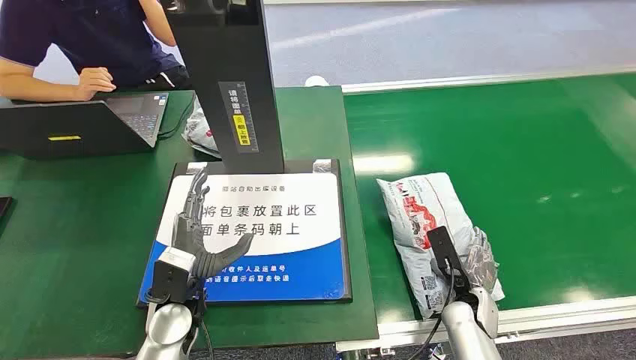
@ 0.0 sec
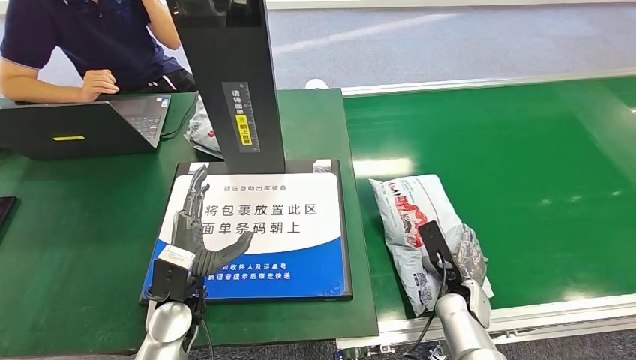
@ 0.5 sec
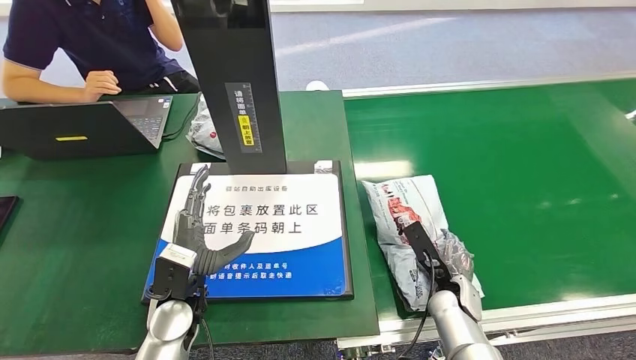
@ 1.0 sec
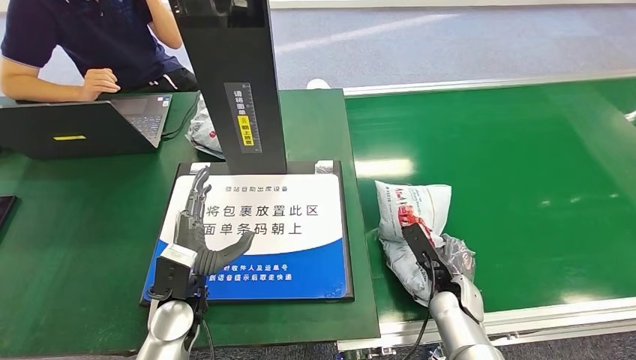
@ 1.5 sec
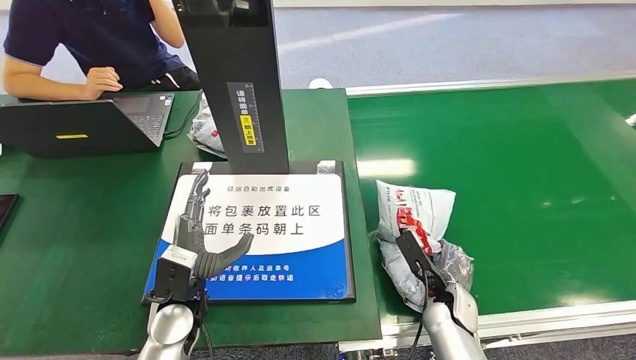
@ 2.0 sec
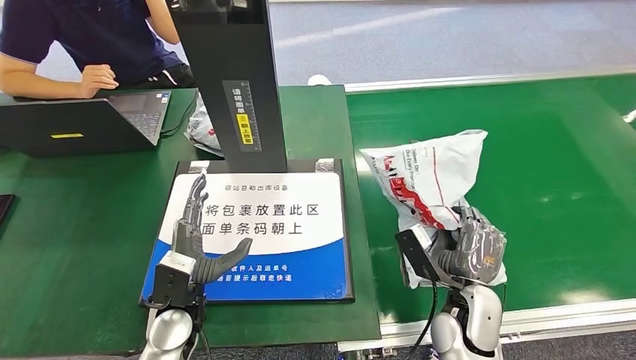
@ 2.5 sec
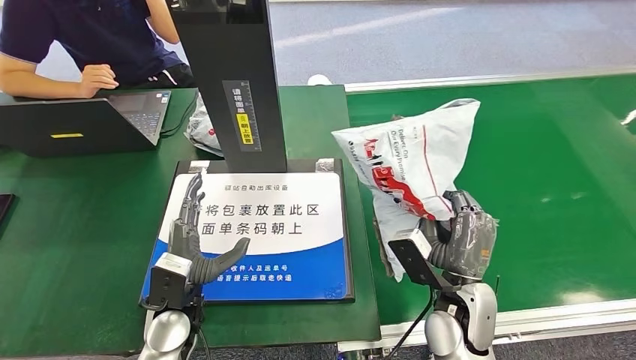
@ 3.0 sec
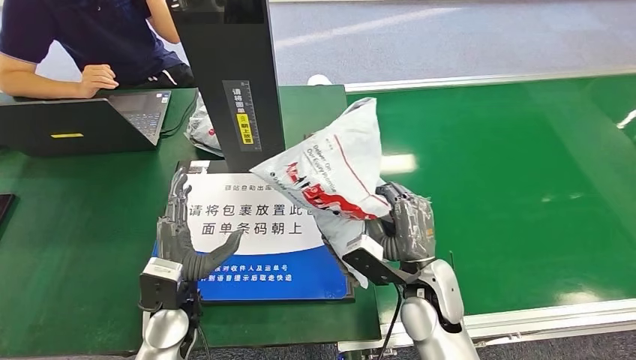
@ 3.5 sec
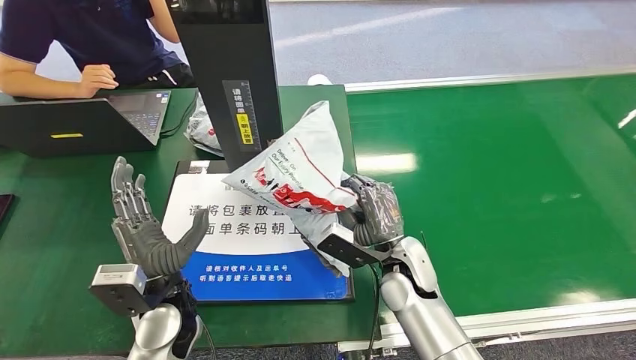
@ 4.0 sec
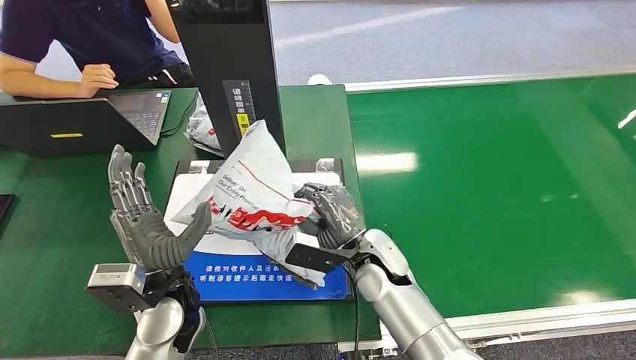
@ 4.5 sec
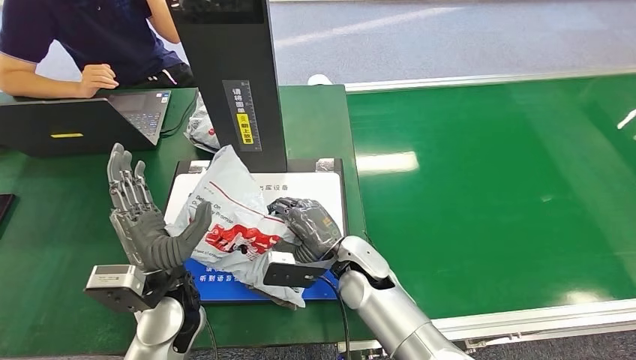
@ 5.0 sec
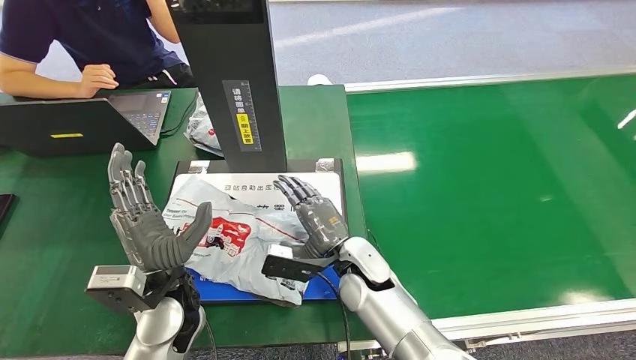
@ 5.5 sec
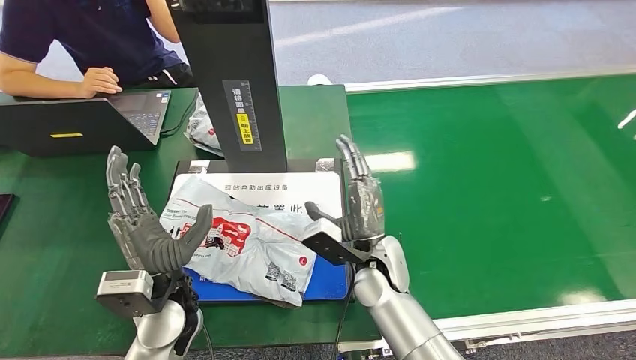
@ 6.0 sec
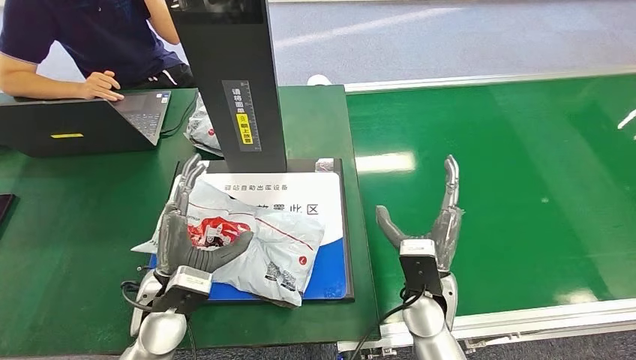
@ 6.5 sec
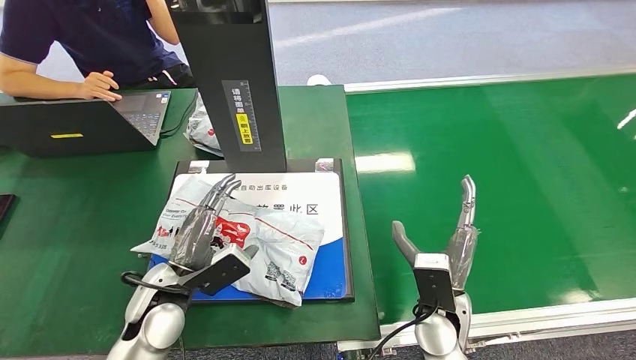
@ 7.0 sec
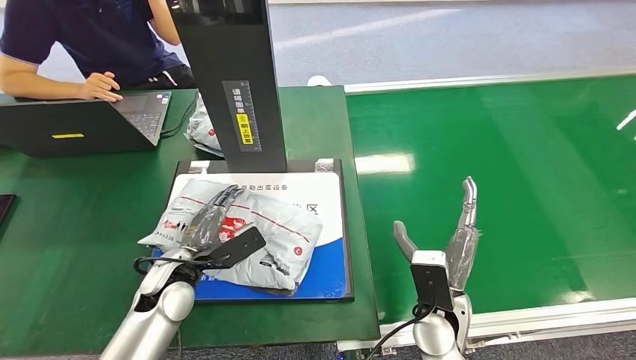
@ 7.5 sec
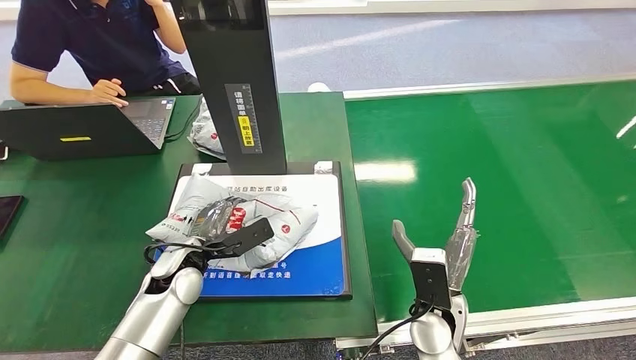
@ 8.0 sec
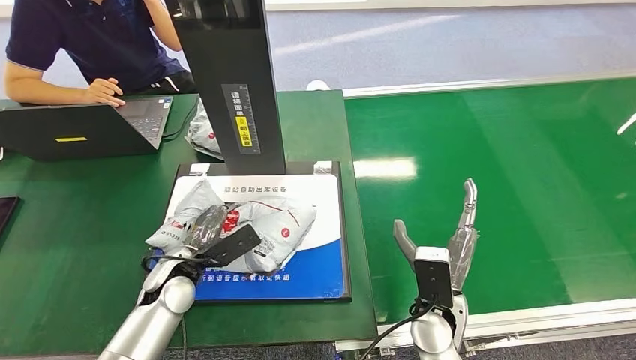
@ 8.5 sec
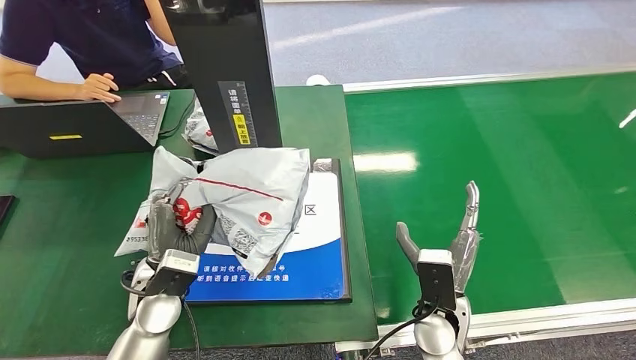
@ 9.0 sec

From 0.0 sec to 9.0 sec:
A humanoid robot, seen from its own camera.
Step, from 0.0 sec to 2.5 sec: Pick up the package from the conveyor belt.
Step, from 3.0 sec to 5.5 sec: Place the package onto the inbound machine.

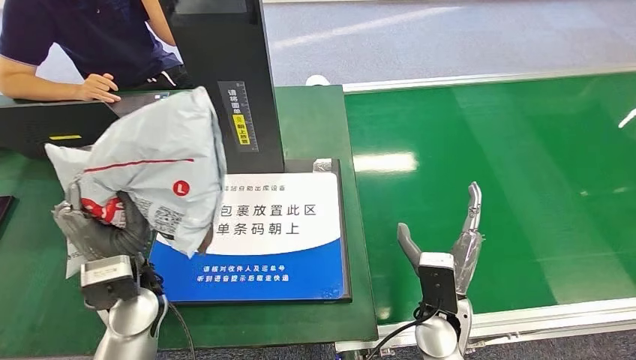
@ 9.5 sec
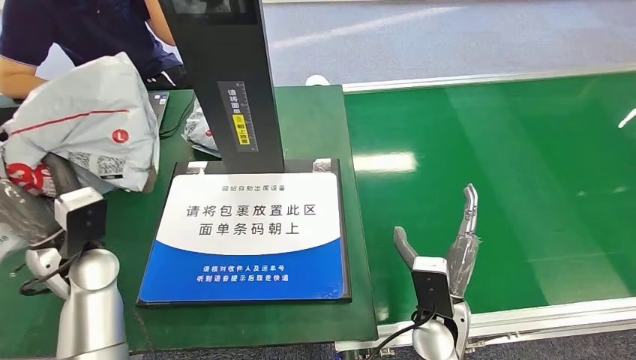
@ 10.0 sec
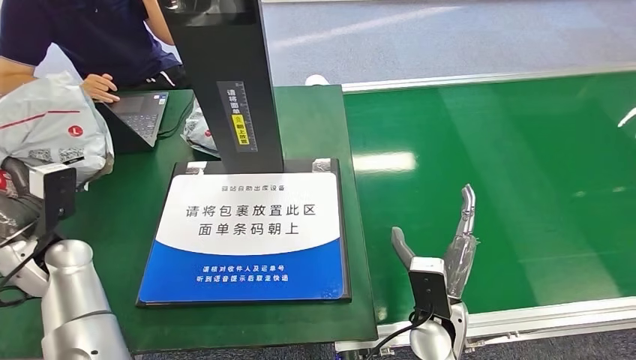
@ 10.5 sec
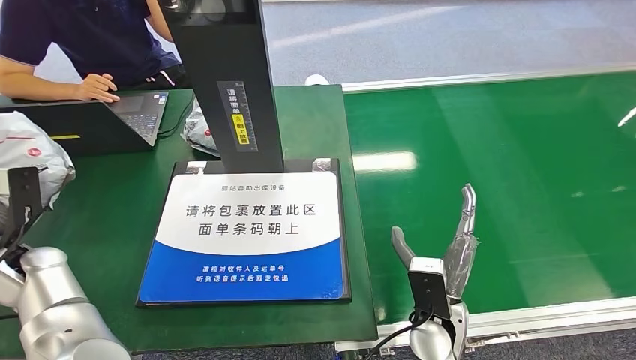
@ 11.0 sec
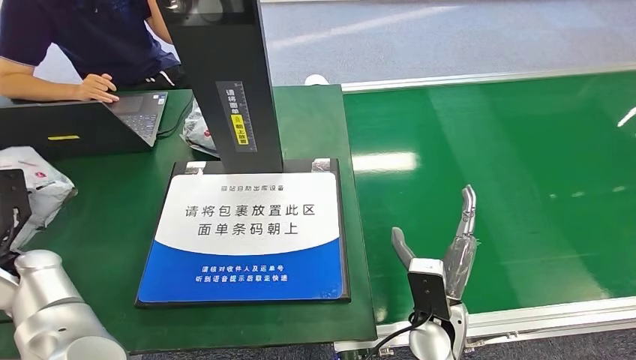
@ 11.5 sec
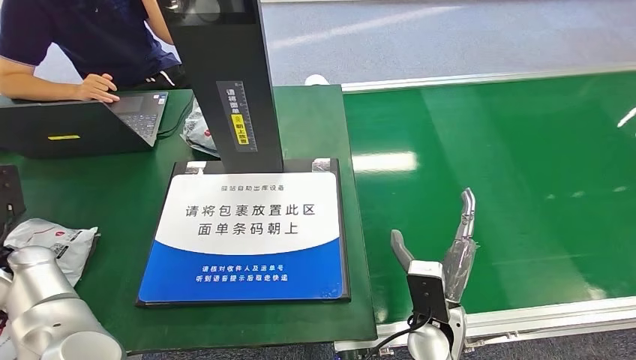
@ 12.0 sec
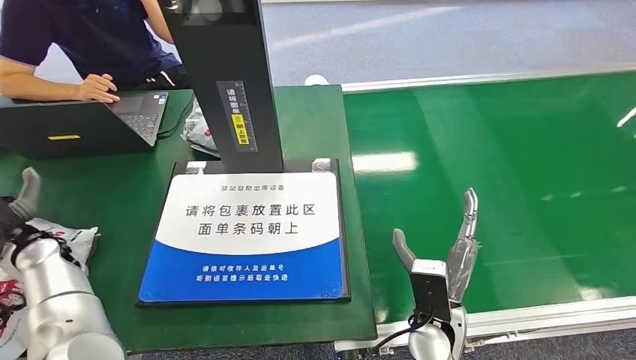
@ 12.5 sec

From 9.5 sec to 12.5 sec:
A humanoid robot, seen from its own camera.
Step, from 10.0 sec to 12.5 sec: Place the package into the parcel locker.

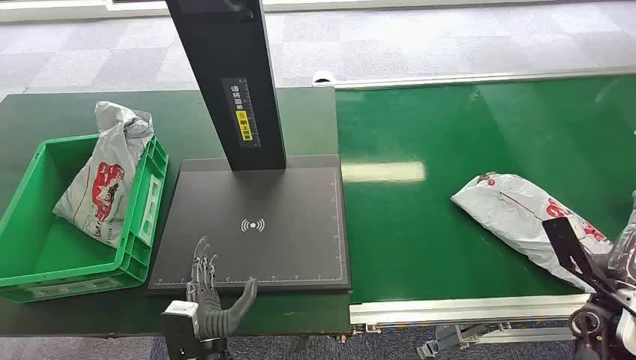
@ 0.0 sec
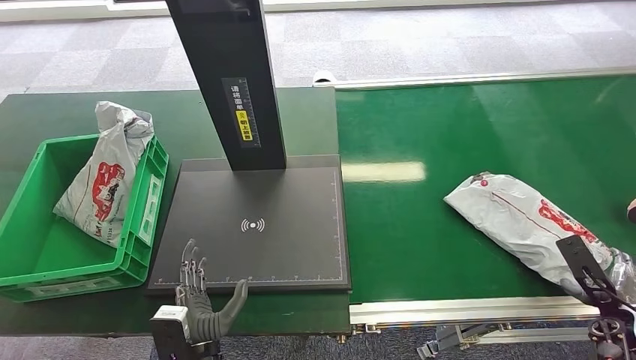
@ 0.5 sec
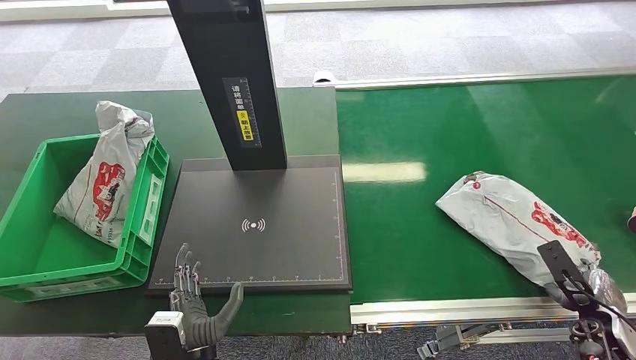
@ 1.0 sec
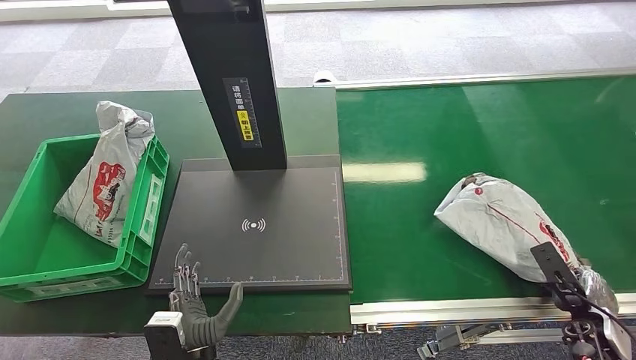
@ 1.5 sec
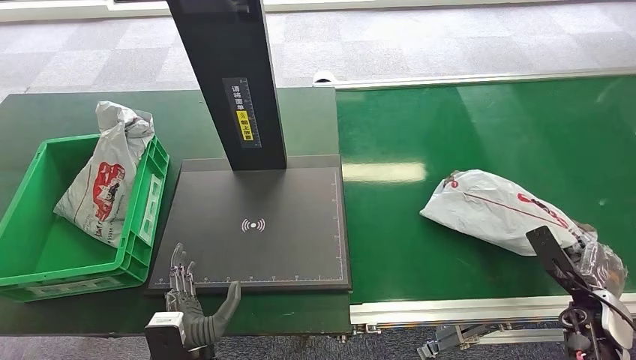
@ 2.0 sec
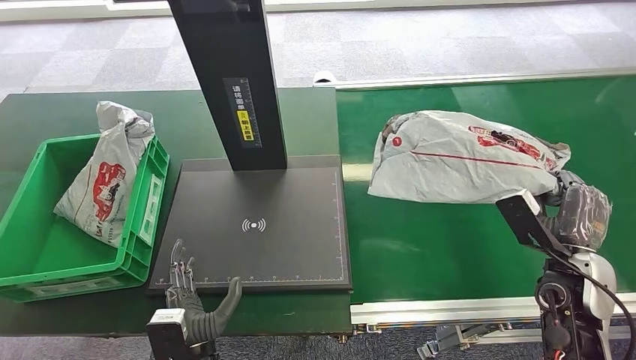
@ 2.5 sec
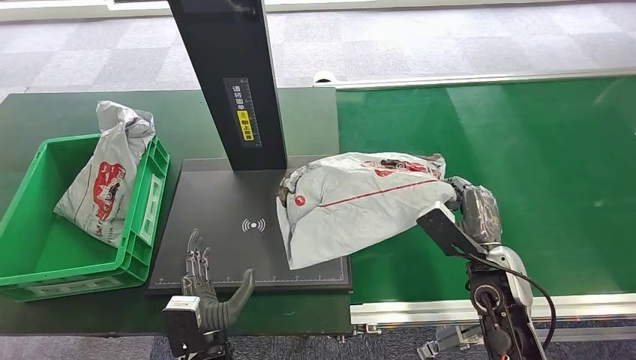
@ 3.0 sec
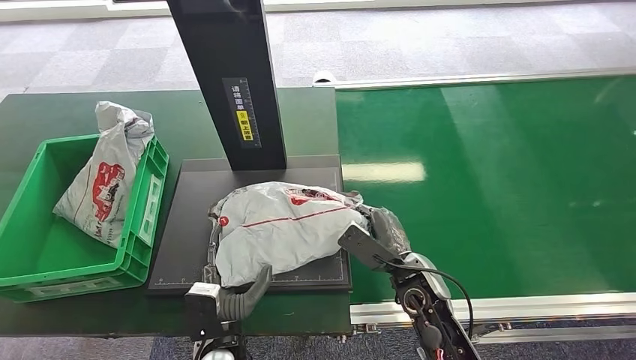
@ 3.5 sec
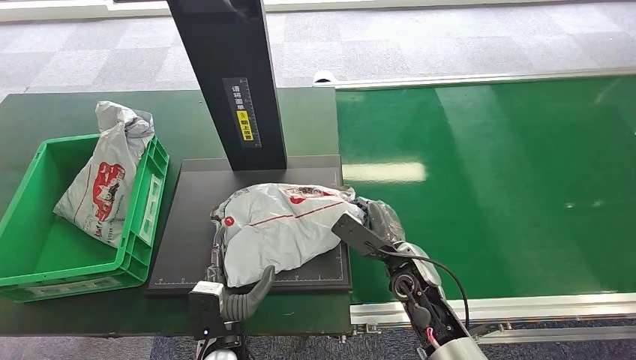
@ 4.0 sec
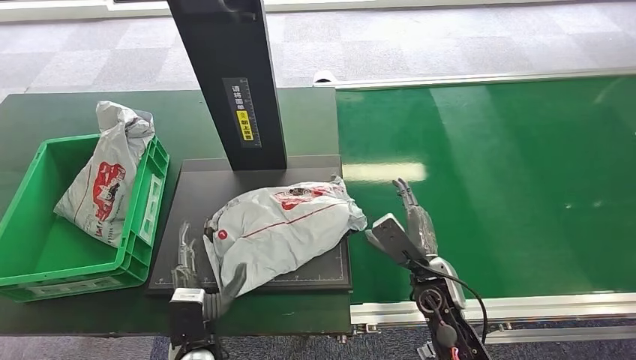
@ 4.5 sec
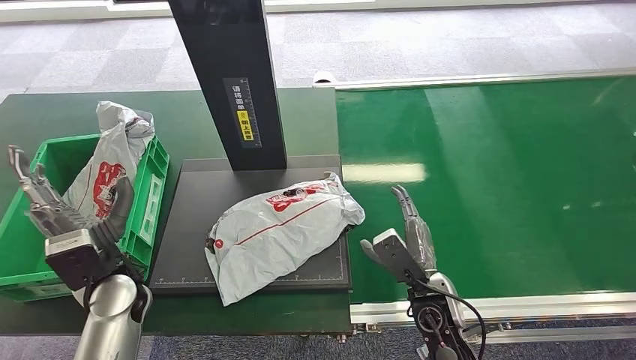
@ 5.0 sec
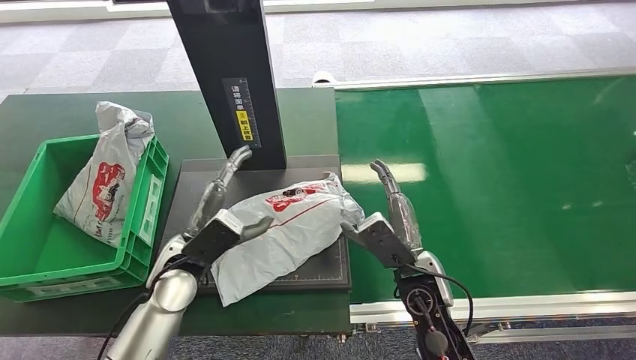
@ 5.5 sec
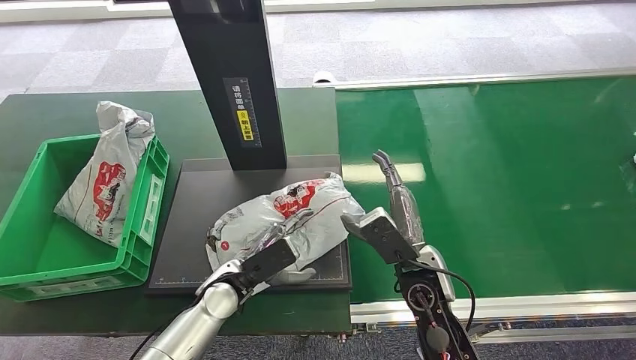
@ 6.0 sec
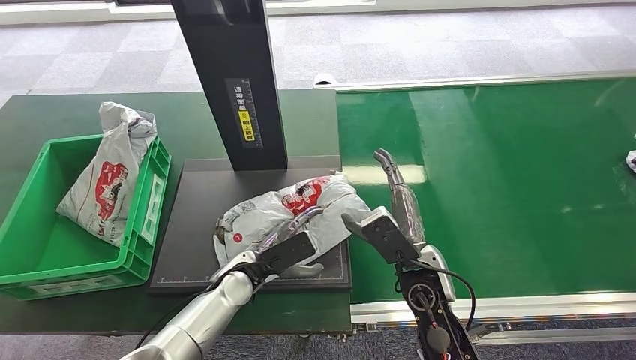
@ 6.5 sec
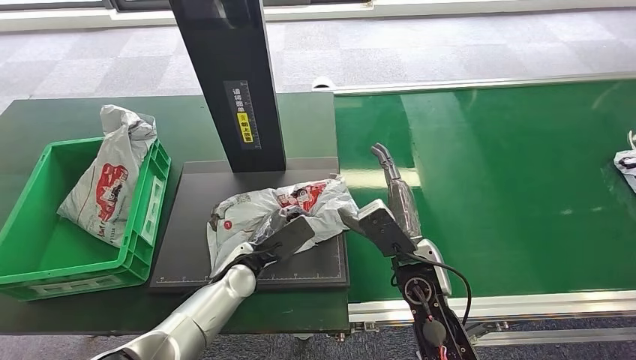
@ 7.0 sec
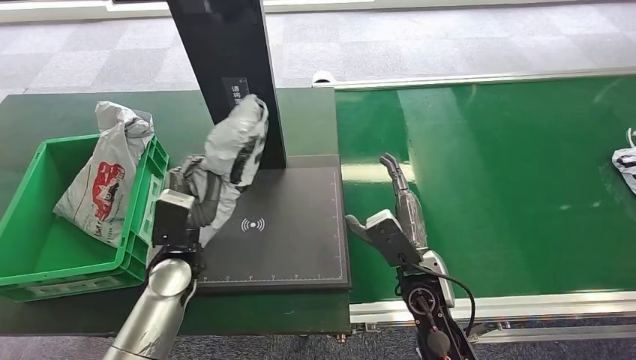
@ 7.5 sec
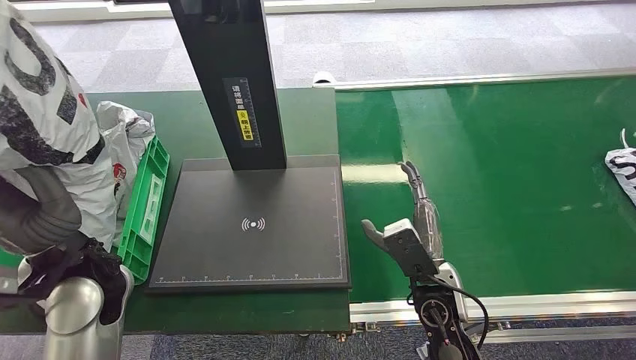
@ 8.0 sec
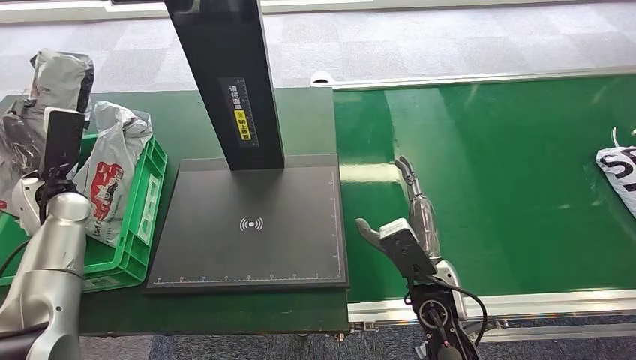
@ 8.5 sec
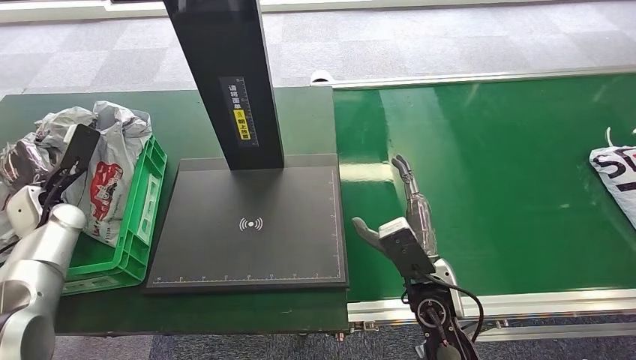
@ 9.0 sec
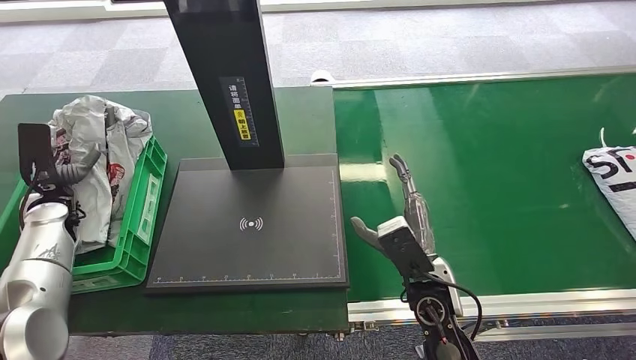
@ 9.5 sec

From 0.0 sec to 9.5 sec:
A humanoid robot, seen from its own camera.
Step, from 0.0 sec to 2.0 sec: Pick up the package from the conveyor belt.
Step, from 2.5 sec to 4.0 sec: Place the package onto the inbound machine.
Step, from 4.5 sec to 7.5 sec: Pick up the package from the inbound machine.
Step, from 8.0 sec to 9.5 sec: Place the package into the parcel locker.
From 4.0 sec to 5.5 sec: The left hand is displaced forward, upward and to the left by approximately 20 cm.
From 5.5 sec to 7.5 sec: The left hand travels downward and back again, about 10 cm each way.
